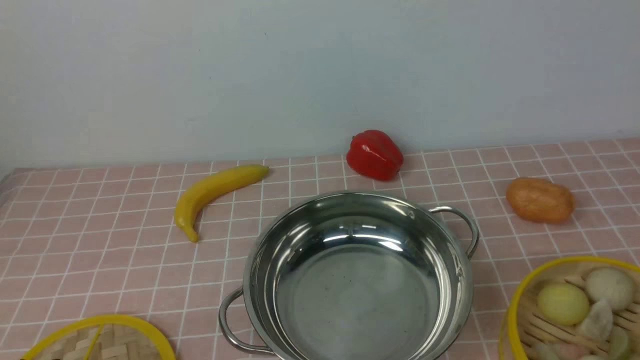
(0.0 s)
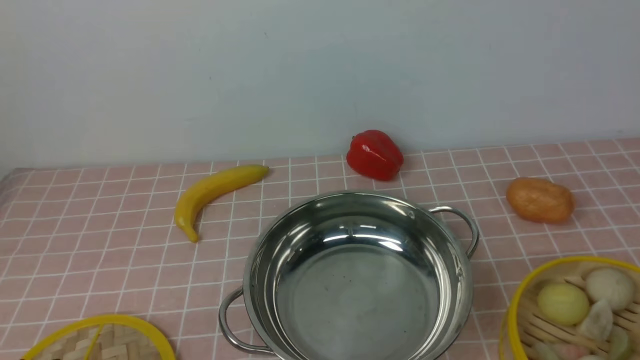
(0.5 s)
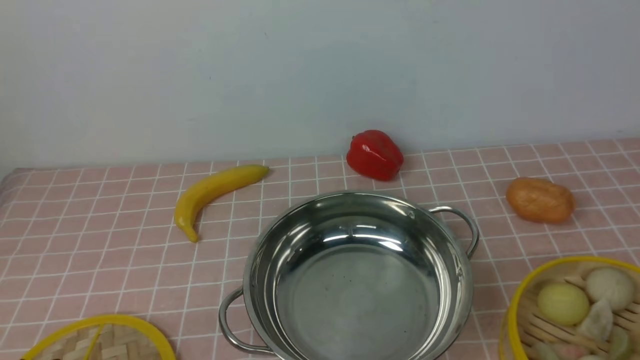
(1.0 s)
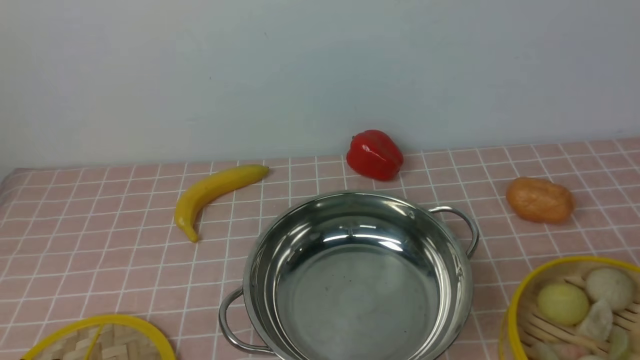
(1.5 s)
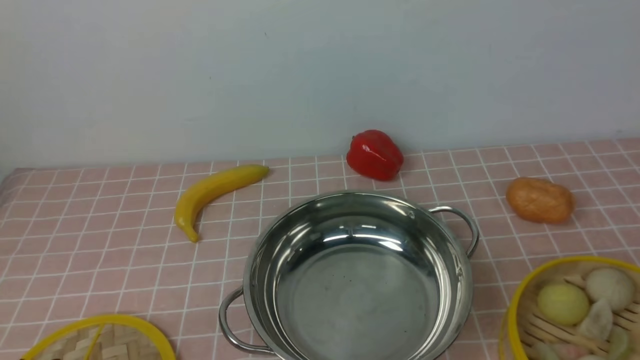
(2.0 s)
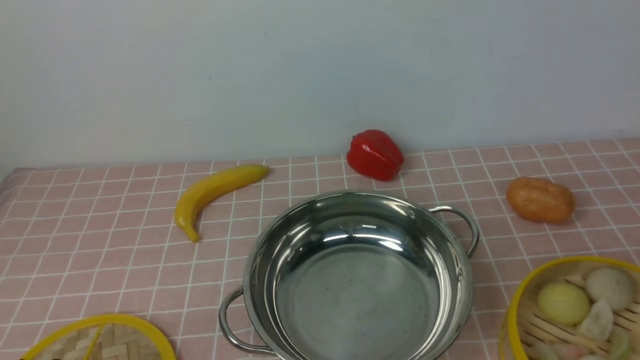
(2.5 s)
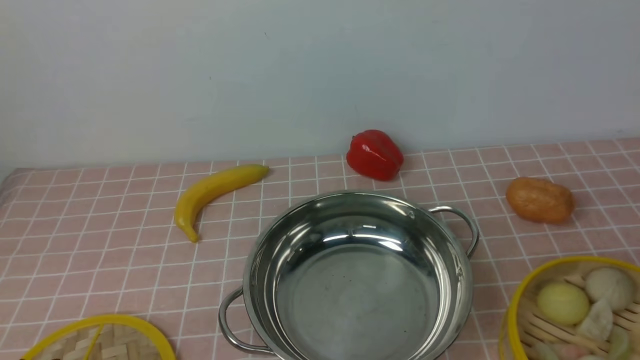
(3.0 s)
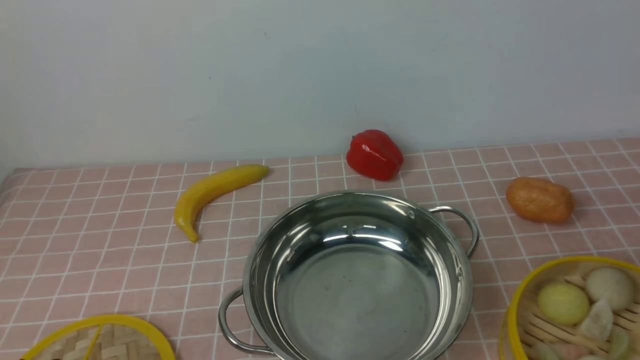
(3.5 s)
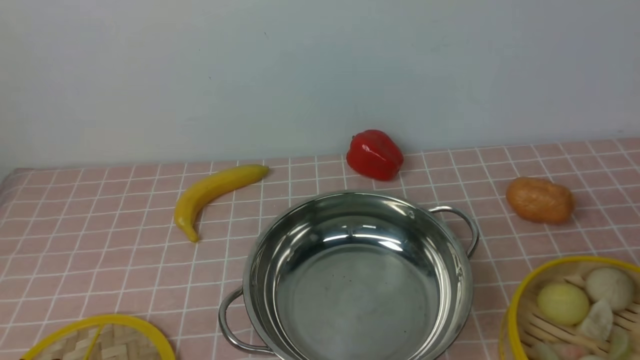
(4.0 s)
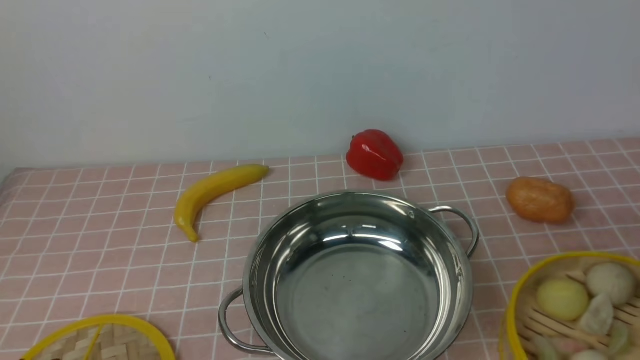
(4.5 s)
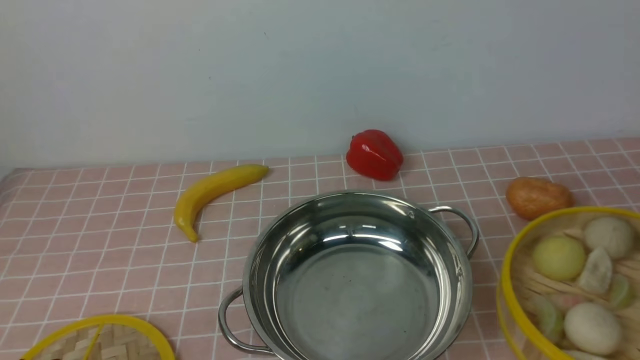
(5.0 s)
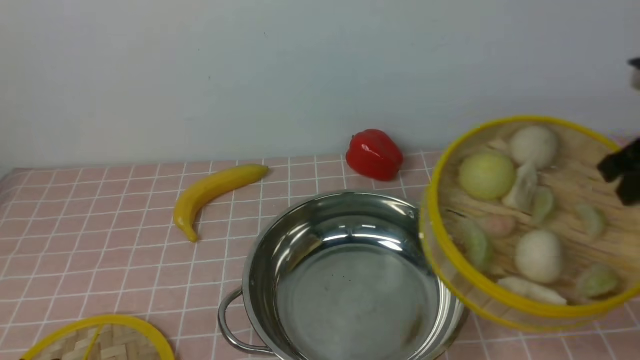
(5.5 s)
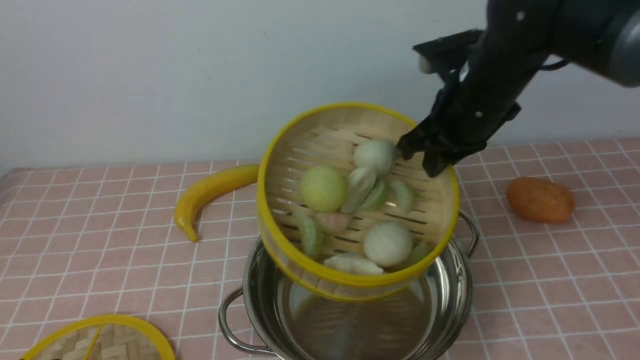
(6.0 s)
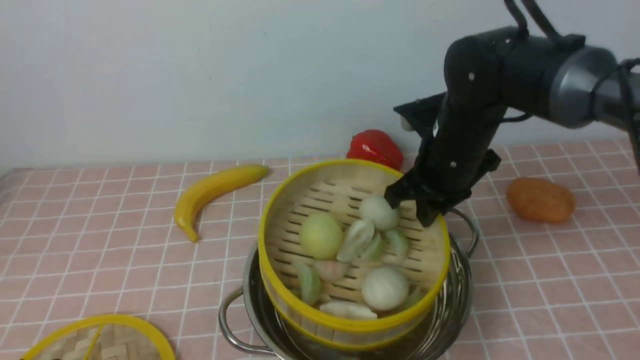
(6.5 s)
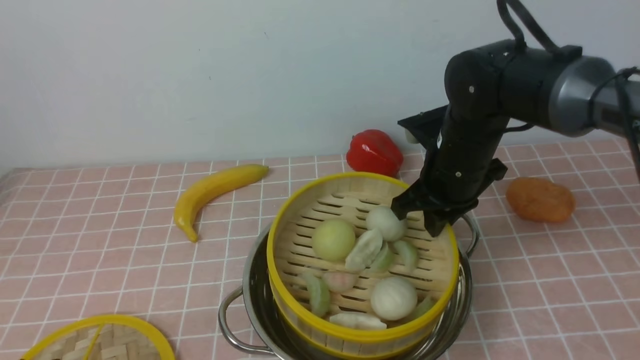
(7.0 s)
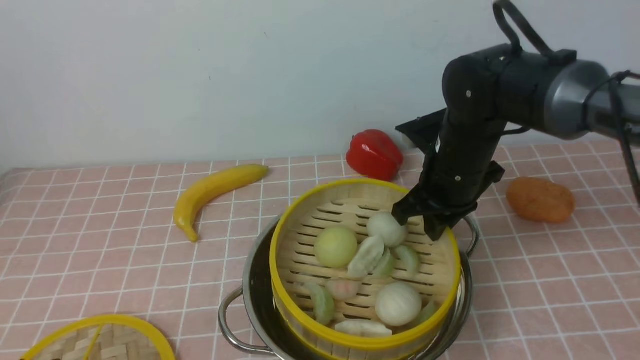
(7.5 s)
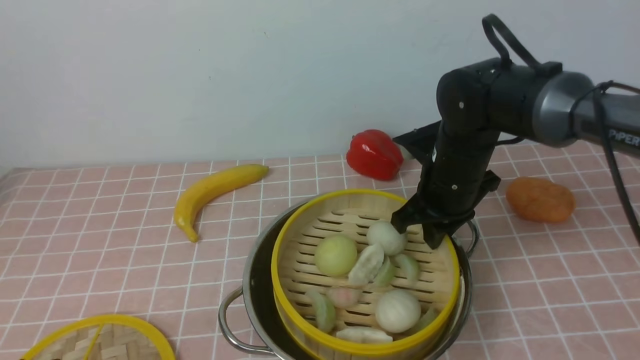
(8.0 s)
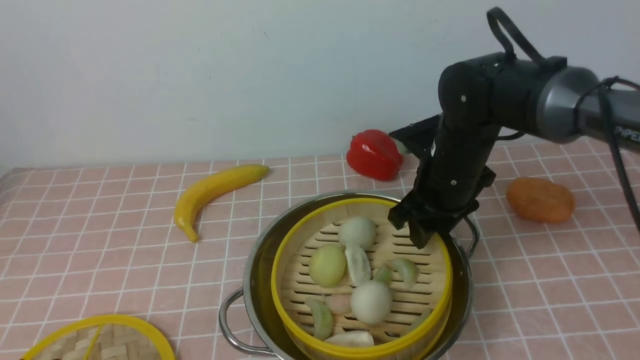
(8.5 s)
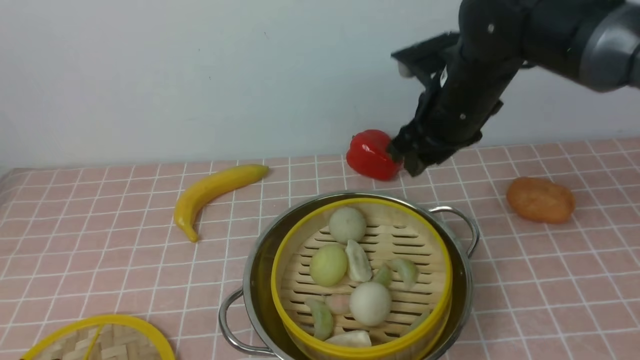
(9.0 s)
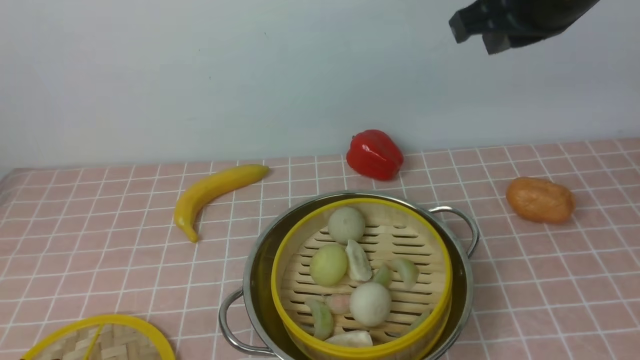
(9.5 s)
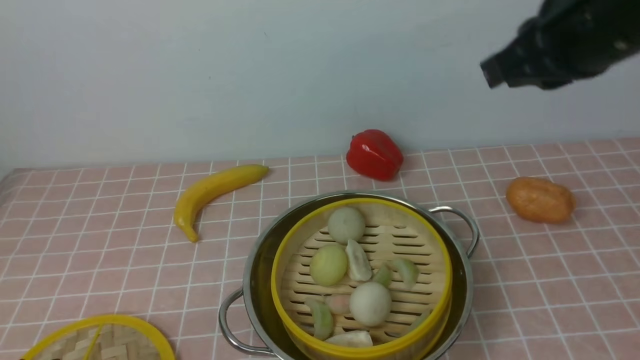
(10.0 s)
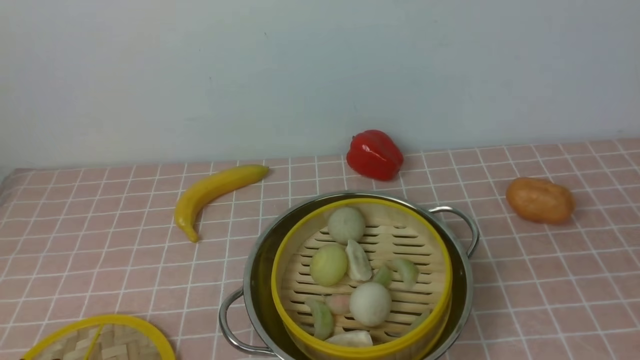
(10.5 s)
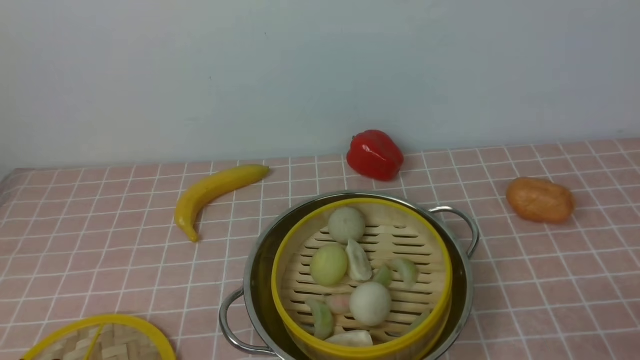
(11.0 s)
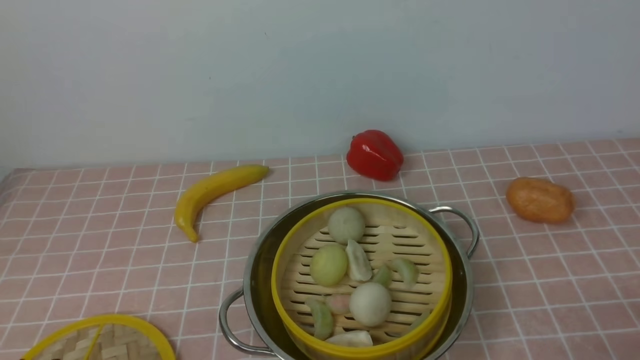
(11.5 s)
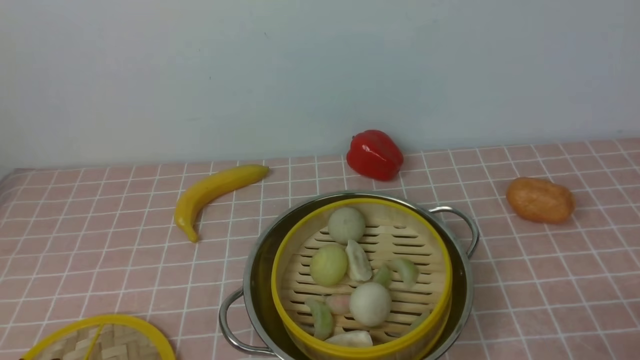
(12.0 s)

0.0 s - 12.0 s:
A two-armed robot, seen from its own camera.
Task of the whole recording: place the steamer in the pot on the pink tablecloth, and put the lid on the steamer.
Step, 5.0 s - 8.5 s: use the right arm to put the steamer into the iron steamer pot in the middle.
4.0 s - 6.0 s: The right gripper goes about 30 cm to the left, forward and upward, and closes.
6.0 s - 8.0 s: The right gripper travels downward by roughly 10 cm.
8.0 s - 10.0 s: The right gripper goes about 25 cm upward, backward and to the right, and opens, then closes again.
10.0 s - 12.0 s: The right gripper is displaced downward, backward and to the right by about 30 cm, and opens its fingers.

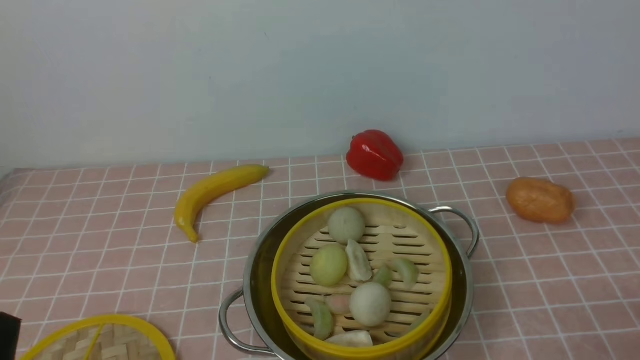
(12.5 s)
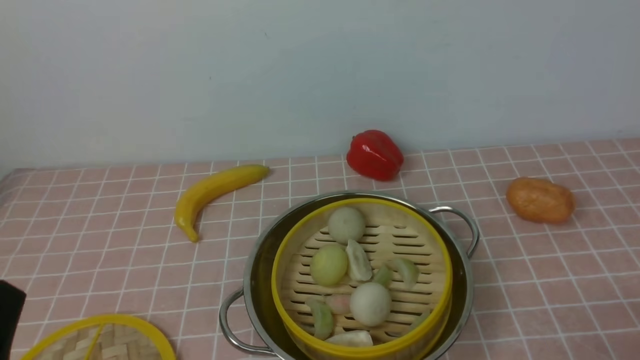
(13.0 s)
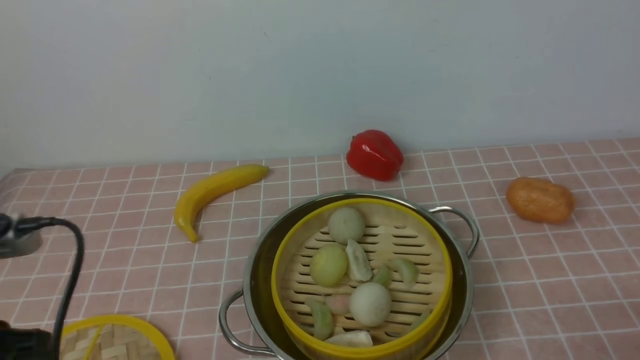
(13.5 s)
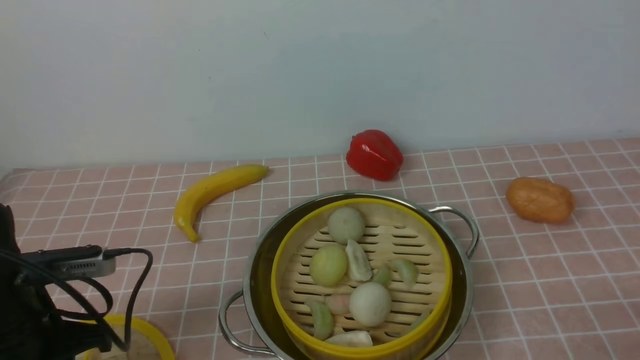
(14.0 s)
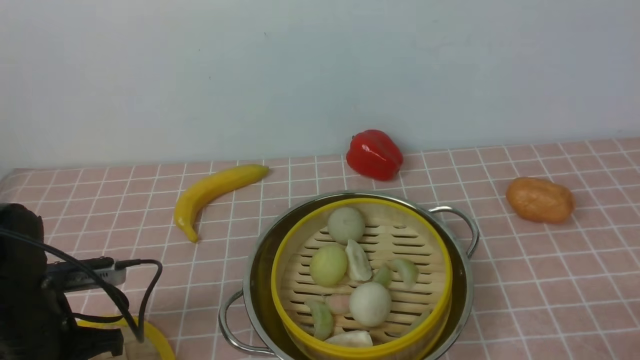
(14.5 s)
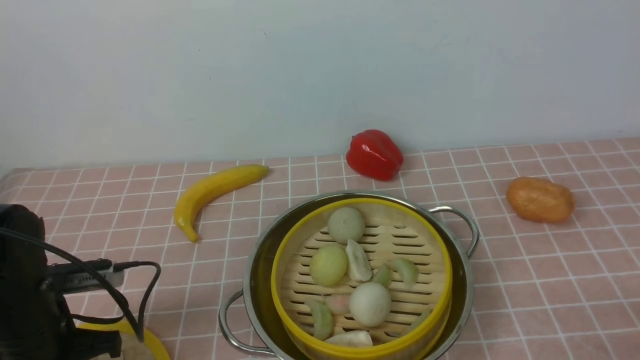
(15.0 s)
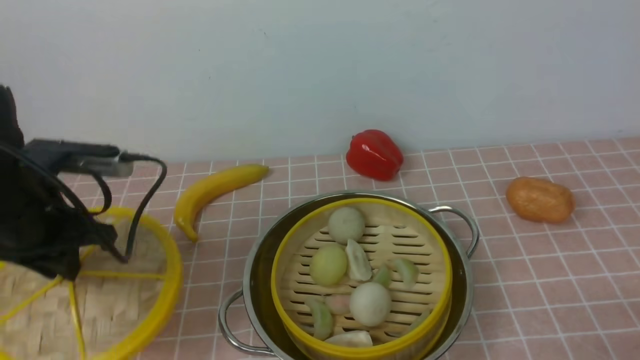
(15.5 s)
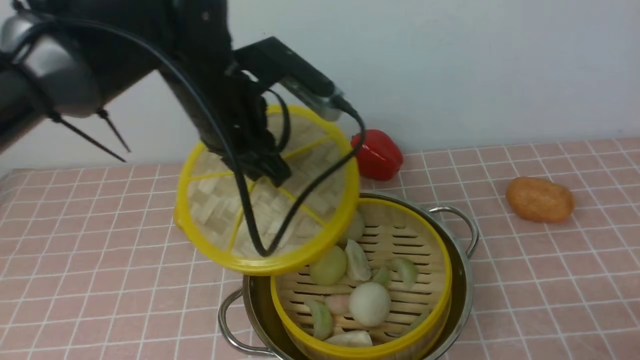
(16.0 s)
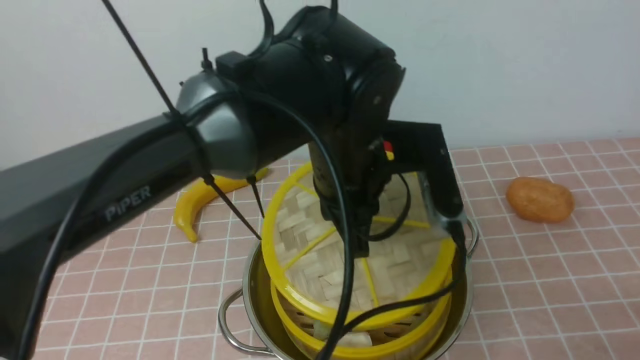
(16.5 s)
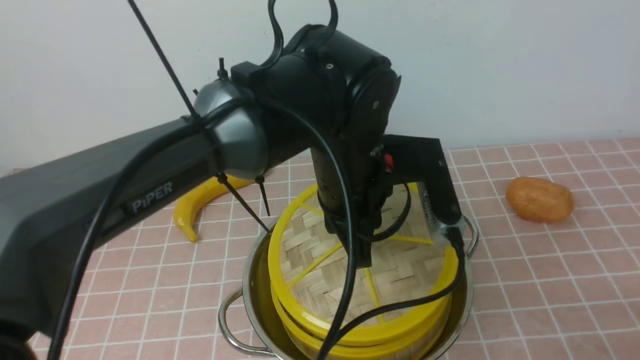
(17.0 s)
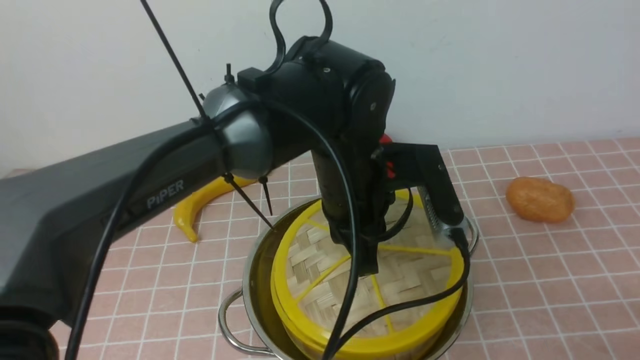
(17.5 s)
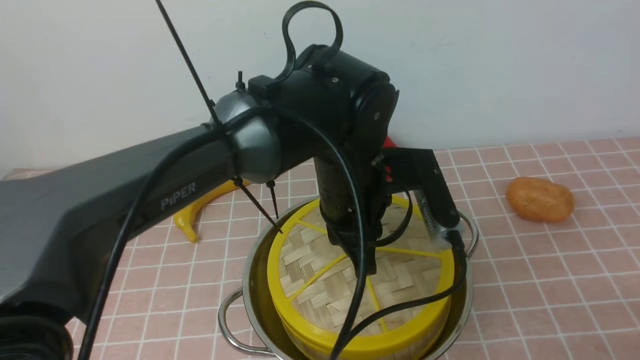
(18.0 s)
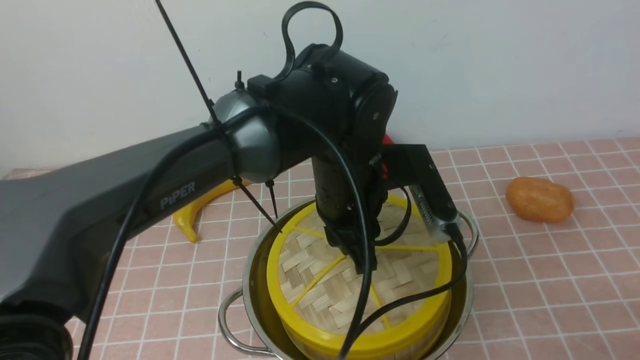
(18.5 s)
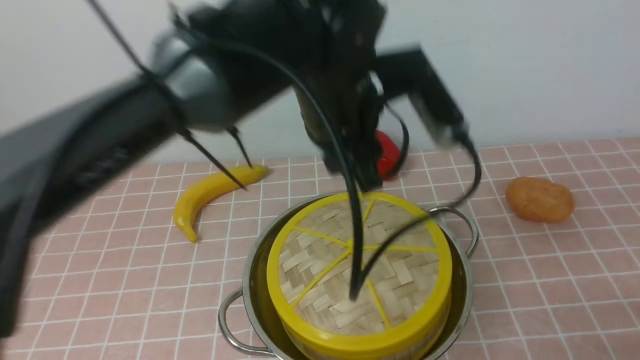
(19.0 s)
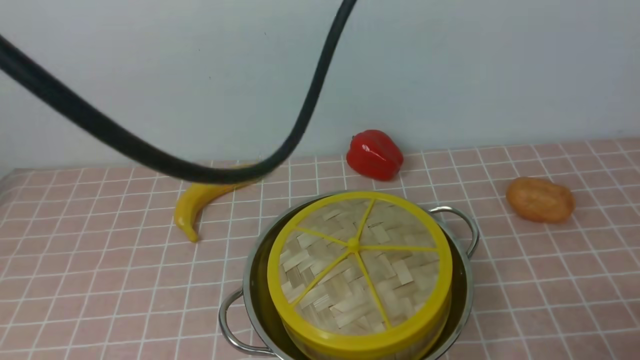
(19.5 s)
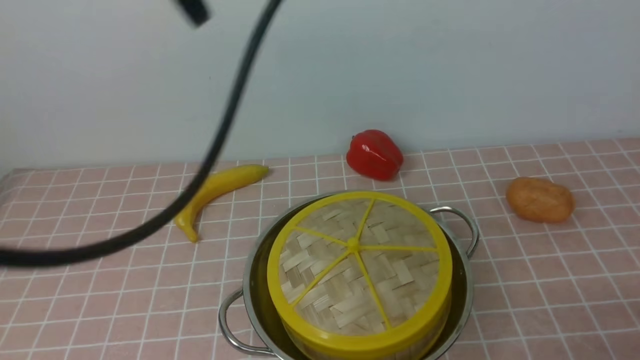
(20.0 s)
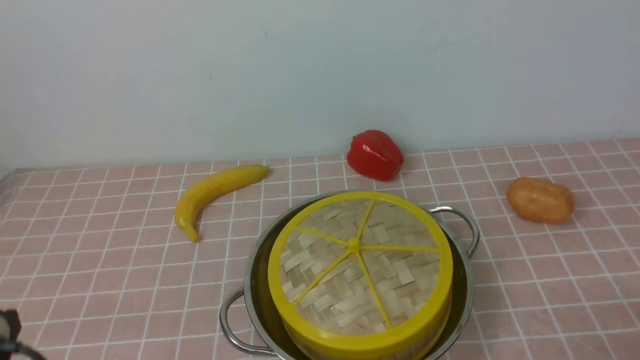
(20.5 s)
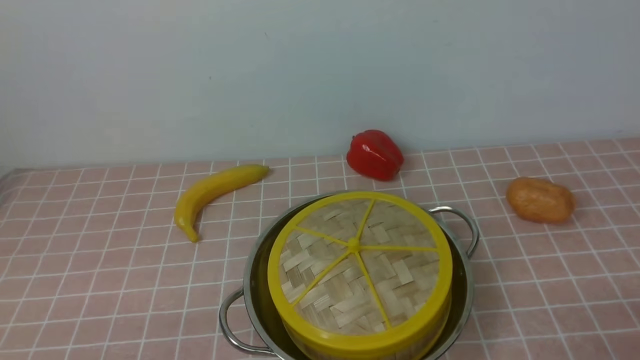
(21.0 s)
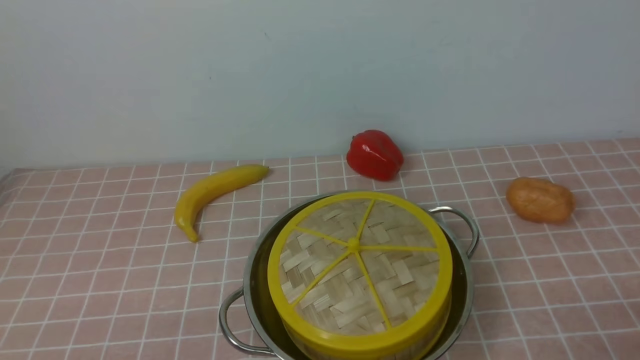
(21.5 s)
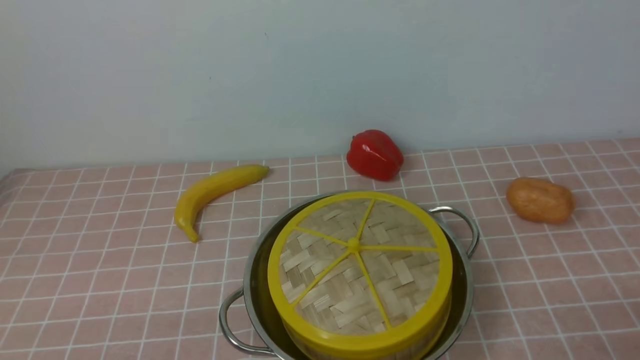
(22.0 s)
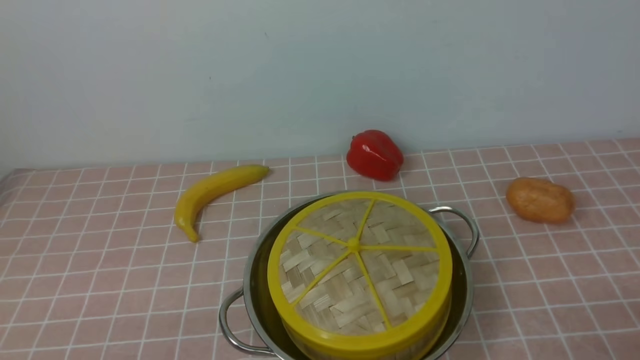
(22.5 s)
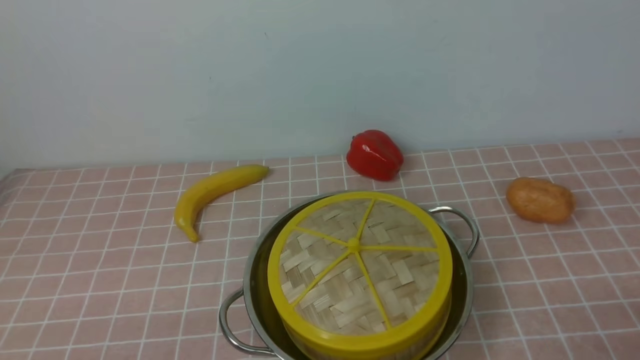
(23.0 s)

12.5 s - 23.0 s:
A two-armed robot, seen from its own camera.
Task of the whole recording: place the steamer in the pot on the pink tablecloth, and put the lid on the steamer.
Step, 12.5 s - 15.0 s: use the left arm to lift the lid of the steamer.
Step, 15.5 s - 18.5 s: use the left arm to place the steamer lid on the steamer.
12.5 s - 14.5 s: The left gripper goes roughly 15 cm forward.
14.5 s - 16.5 s: The left gripper shifts some 30 cm to the right and upward, and closes.
16.5 s - 19.0 s: The left gripper shifts about 5 cm upward, and opens its fingers.
19.0 s - 21.0 s: The left gripper travels backward, to the left and downward by about 40 cm, and closes its fingers.
